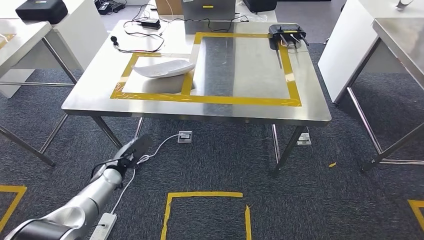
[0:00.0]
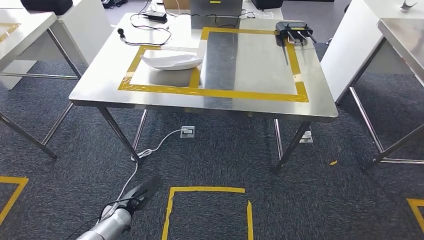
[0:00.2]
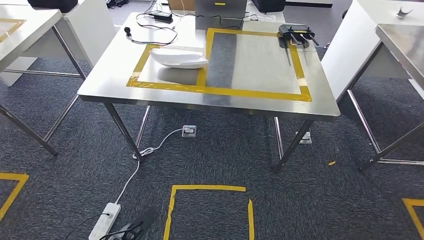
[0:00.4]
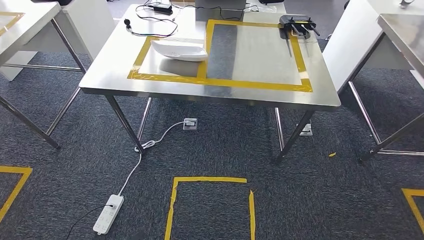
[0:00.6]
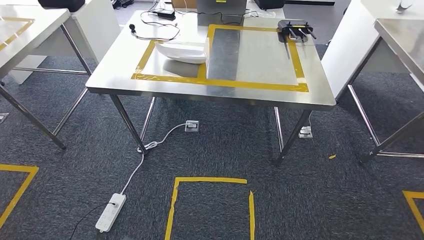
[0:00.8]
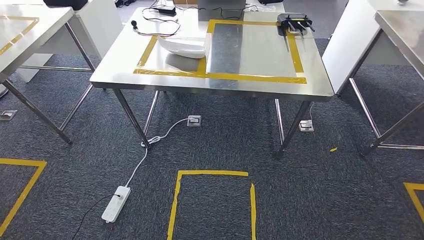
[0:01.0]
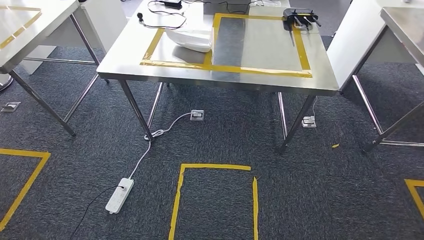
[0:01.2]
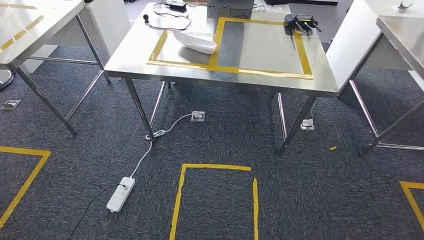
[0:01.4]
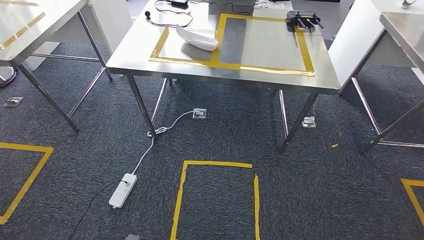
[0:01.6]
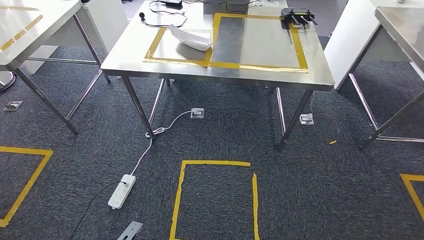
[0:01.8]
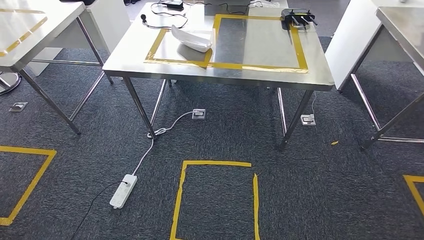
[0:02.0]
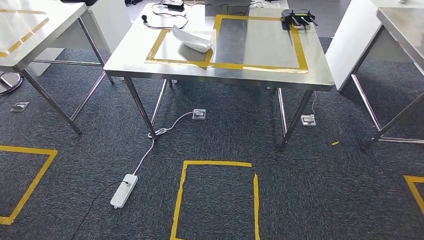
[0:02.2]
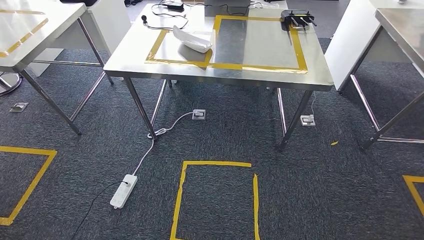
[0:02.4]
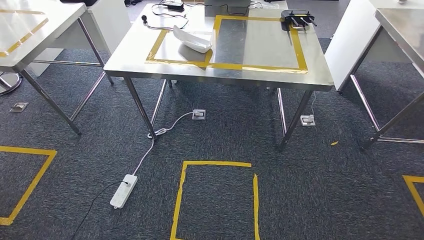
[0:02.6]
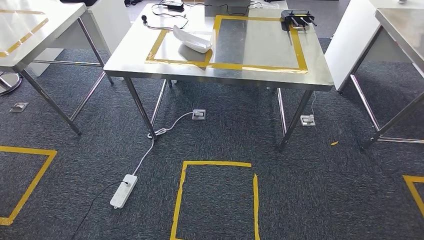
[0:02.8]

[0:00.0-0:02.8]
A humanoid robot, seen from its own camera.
Step, 0:00.0 to 0:02.8: Return to the initial position at the workbench.

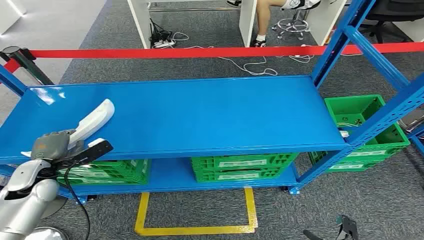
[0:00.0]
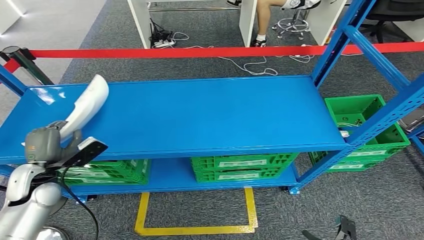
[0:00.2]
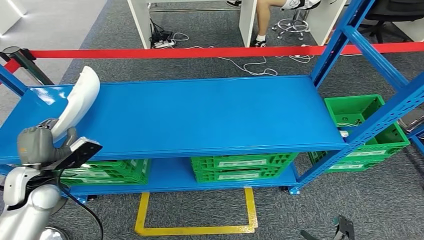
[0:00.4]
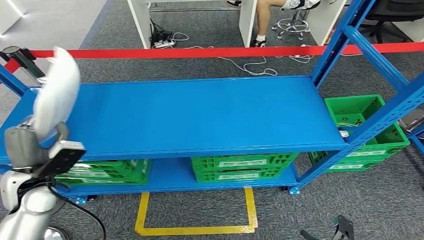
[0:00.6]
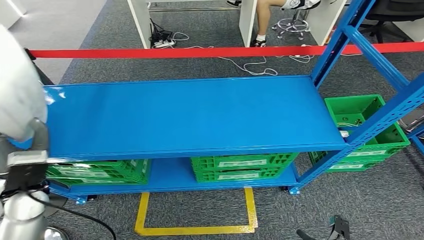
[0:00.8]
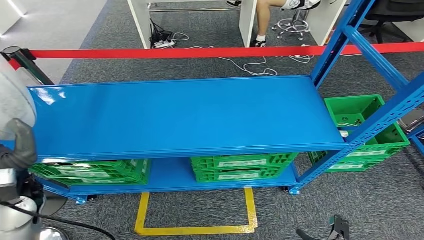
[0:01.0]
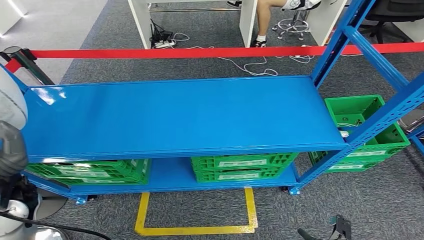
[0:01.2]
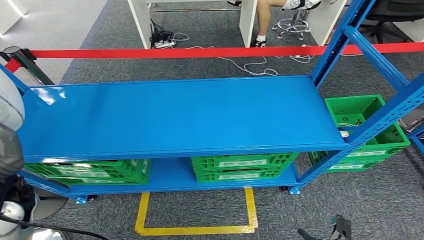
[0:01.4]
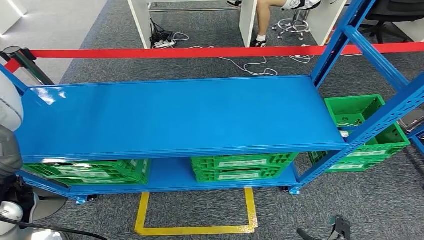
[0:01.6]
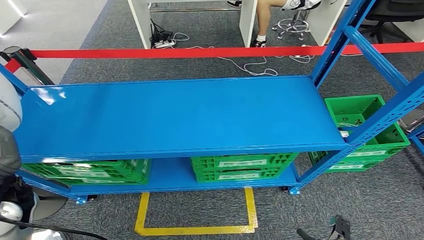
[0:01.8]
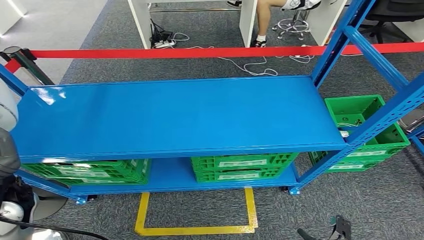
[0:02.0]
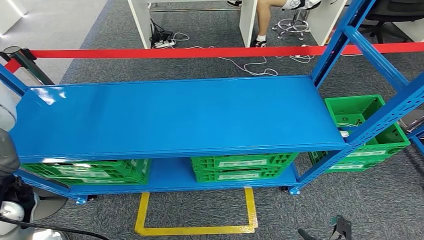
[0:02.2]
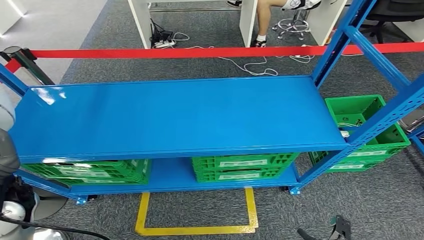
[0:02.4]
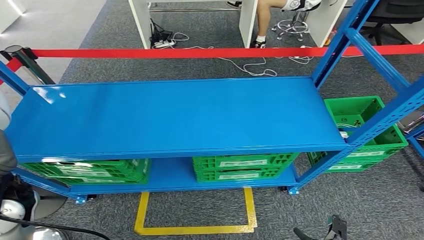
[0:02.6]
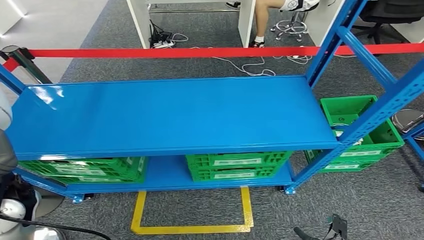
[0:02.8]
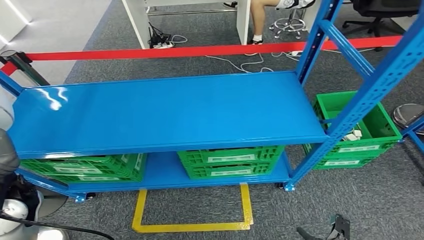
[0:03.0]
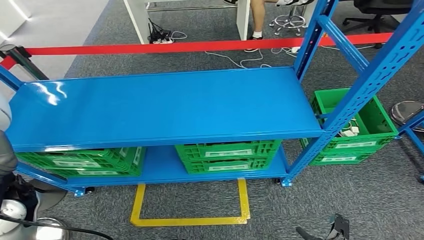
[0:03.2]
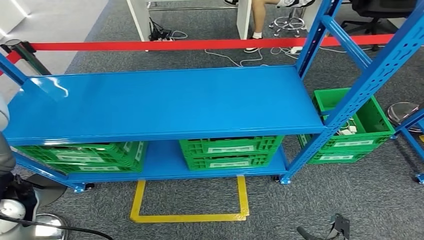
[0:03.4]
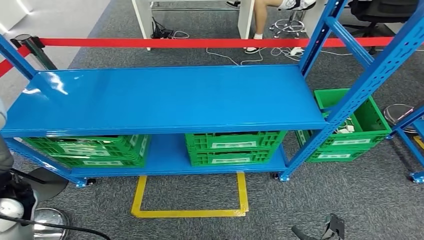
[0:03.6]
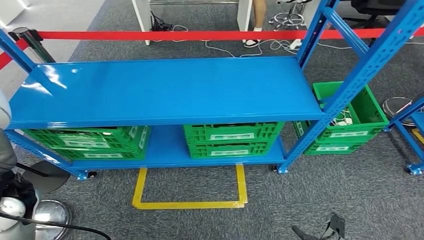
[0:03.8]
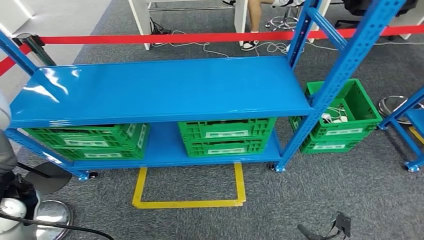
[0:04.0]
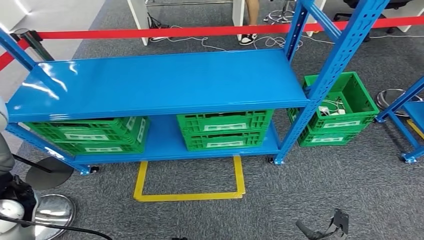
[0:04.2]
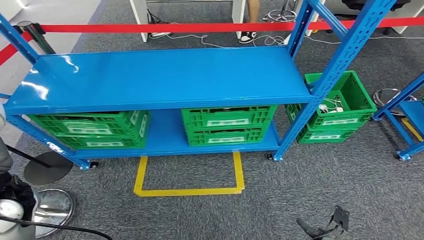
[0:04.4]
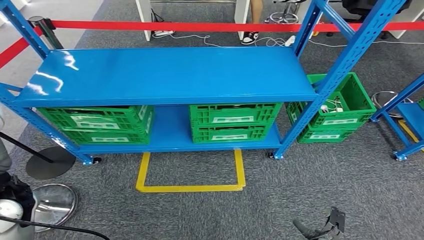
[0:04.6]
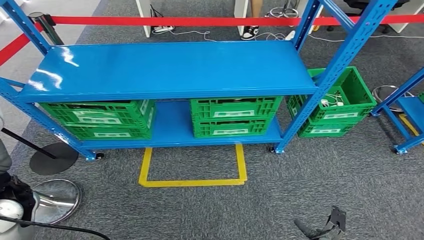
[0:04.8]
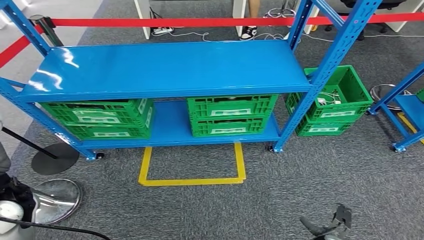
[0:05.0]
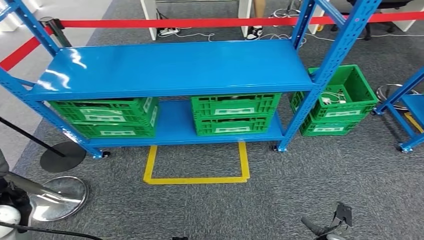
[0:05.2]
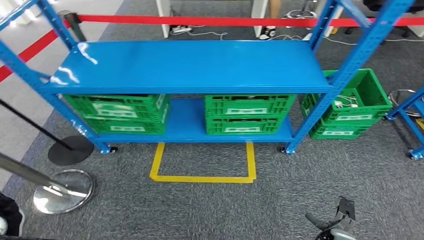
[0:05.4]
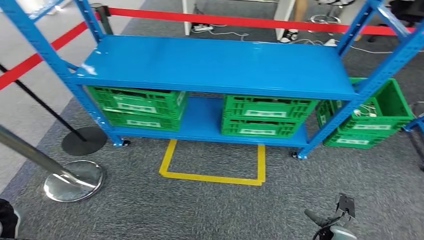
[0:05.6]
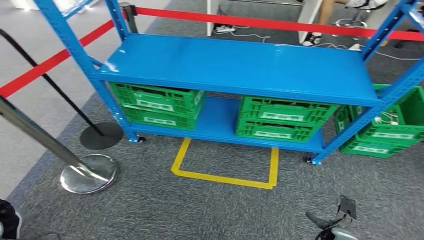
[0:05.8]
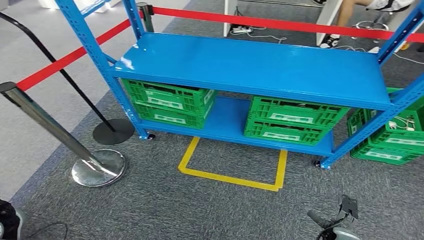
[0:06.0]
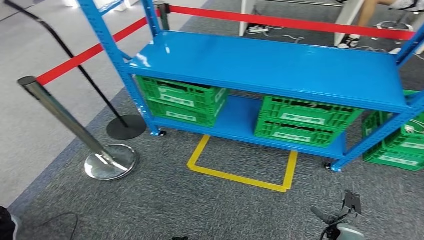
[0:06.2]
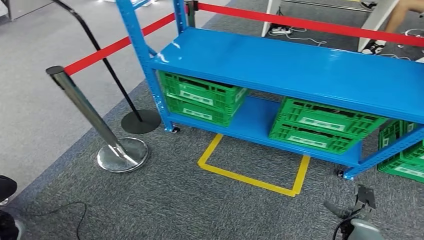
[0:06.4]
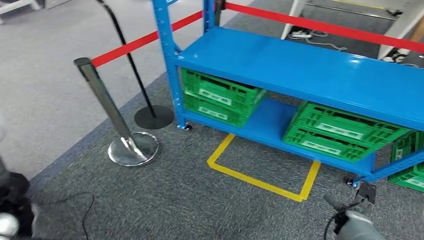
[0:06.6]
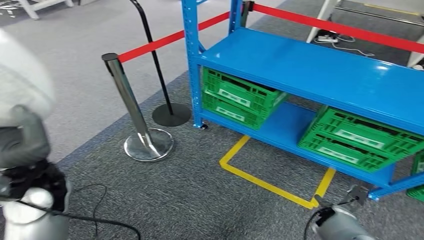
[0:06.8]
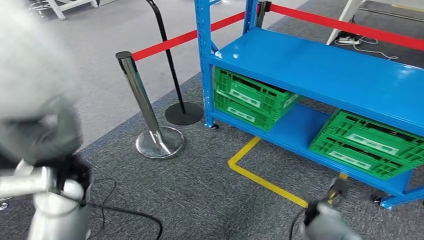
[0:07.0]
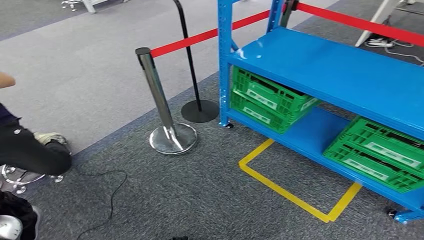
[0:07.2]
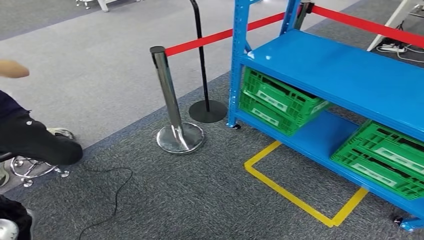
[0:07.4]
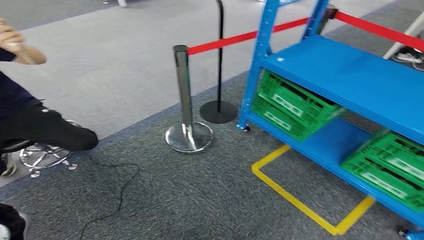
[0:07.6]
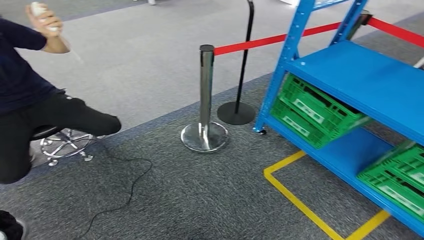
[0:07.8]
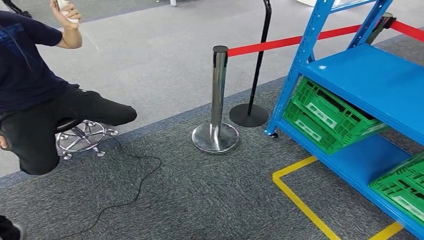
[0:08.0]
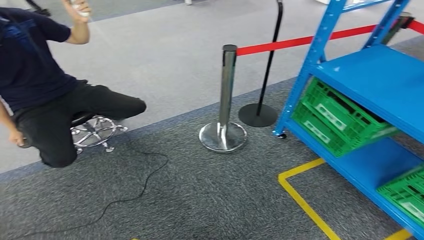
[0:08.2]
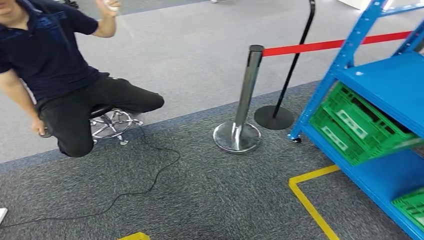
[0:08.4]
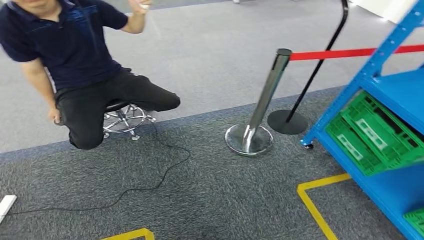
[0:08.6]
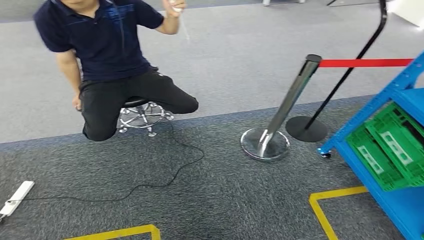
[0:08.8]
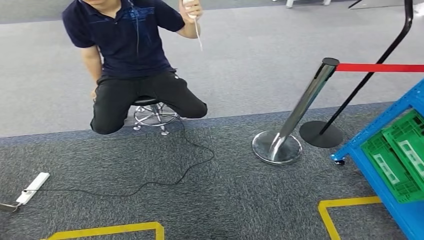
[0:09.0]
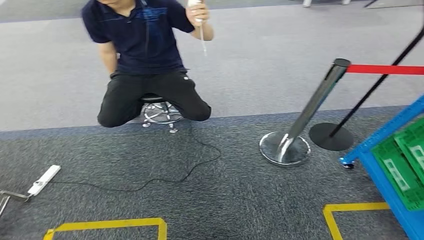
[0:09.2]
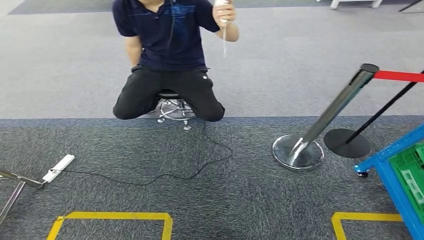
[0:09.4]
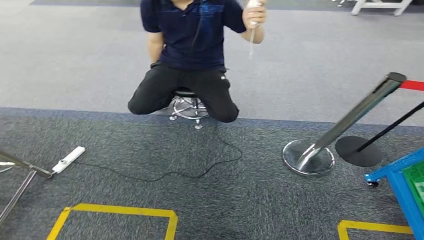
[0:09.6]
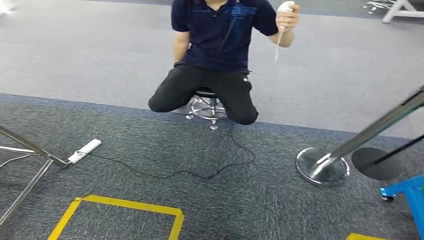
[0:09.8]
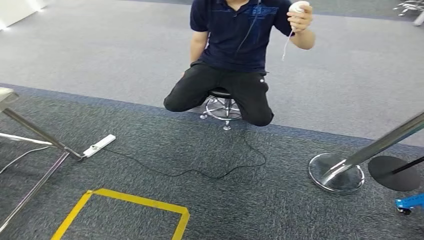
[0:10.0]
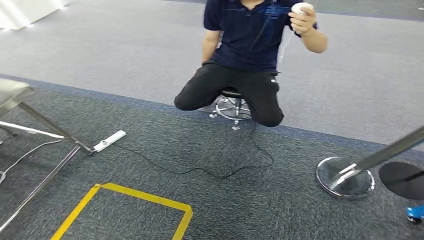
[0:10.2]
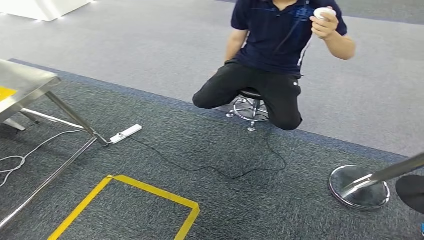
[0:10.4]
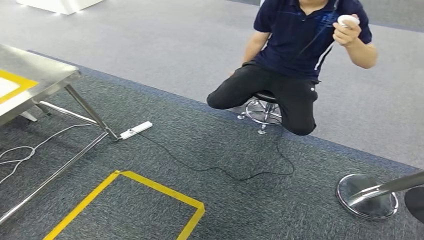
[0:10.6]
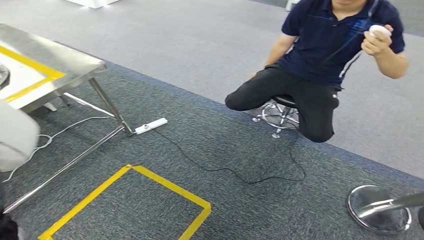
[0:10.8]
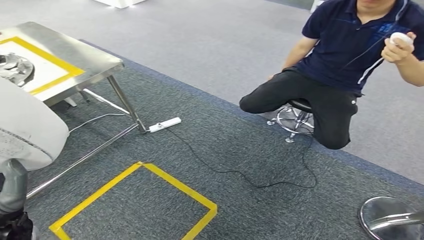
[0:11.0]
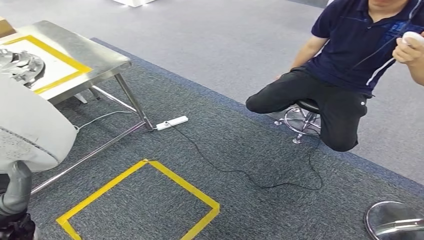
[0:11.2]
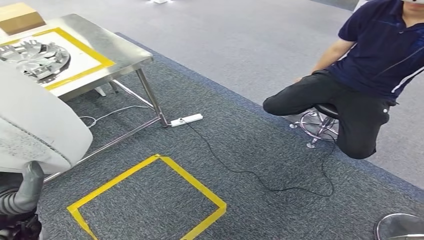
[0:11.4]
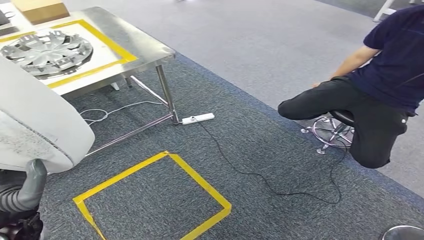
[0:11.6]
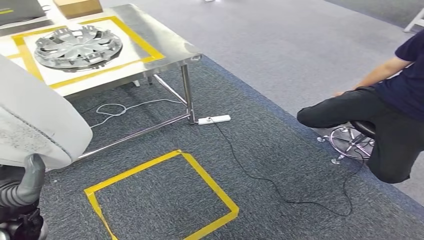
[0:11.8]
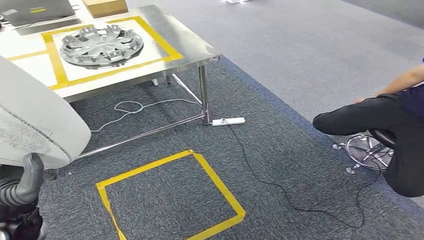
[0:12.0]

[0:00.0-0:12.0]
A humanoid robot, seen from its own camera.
Step, 0:00.0 to 0:02.2: Pick up the small component from the shelf.

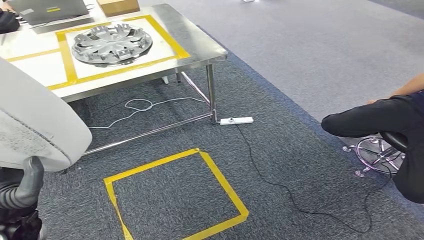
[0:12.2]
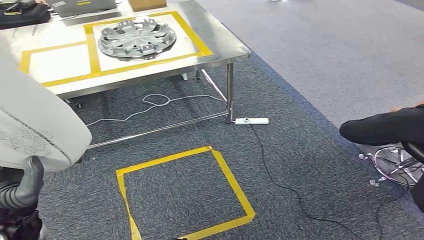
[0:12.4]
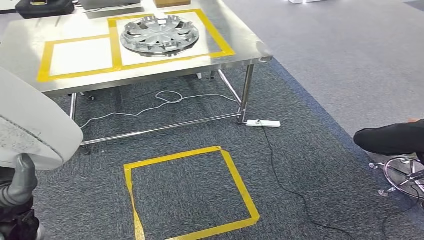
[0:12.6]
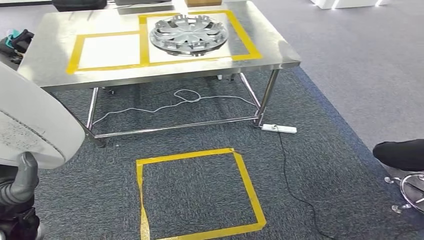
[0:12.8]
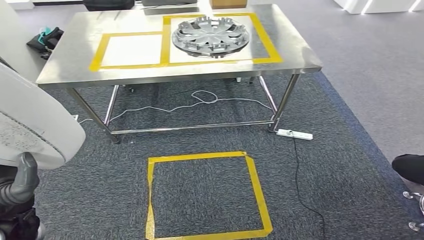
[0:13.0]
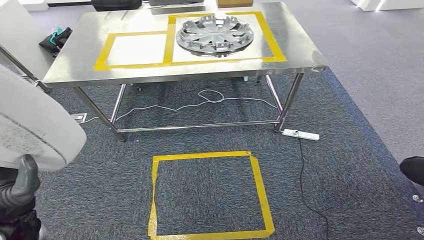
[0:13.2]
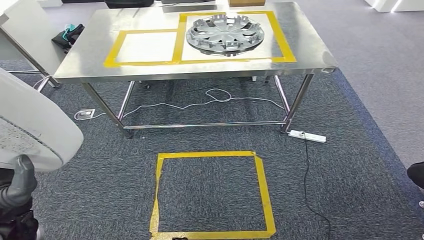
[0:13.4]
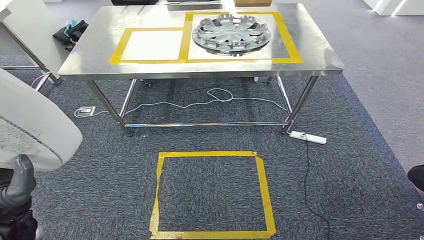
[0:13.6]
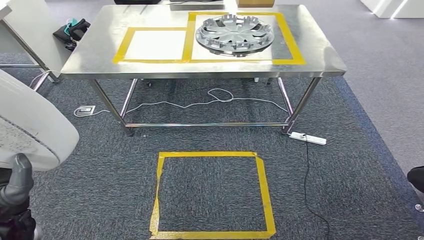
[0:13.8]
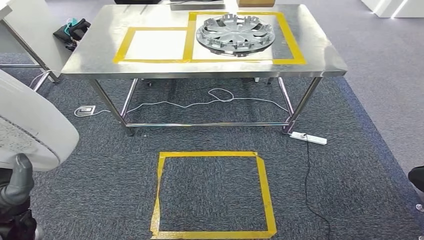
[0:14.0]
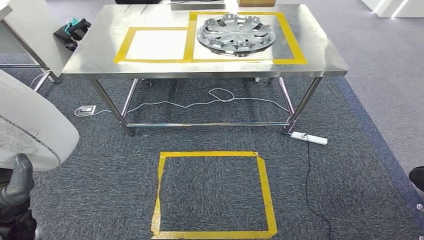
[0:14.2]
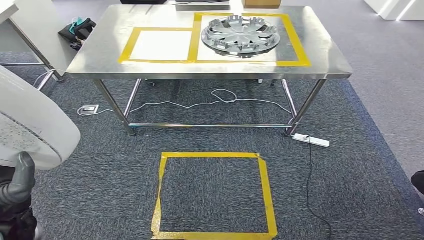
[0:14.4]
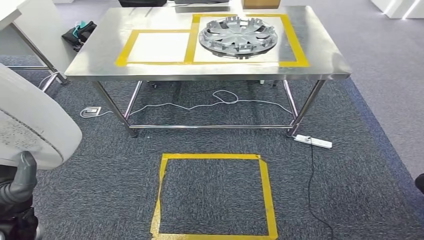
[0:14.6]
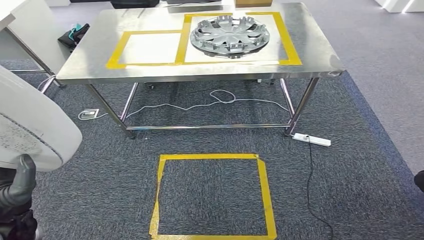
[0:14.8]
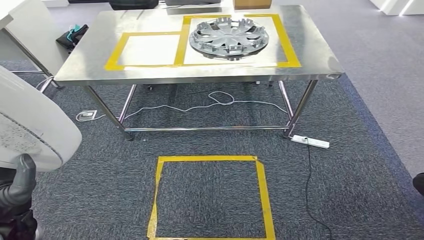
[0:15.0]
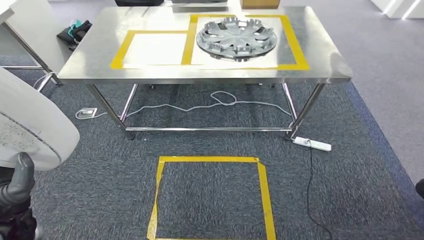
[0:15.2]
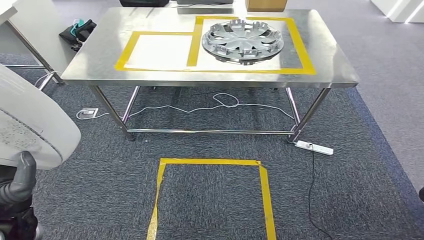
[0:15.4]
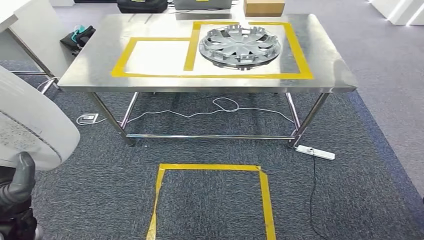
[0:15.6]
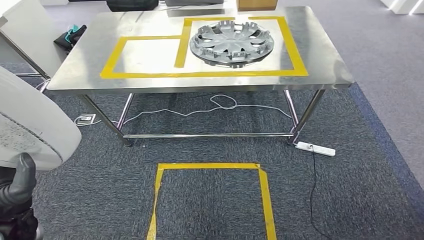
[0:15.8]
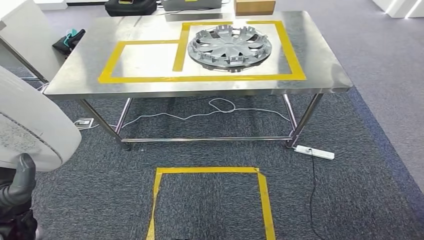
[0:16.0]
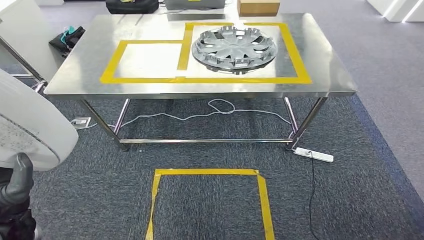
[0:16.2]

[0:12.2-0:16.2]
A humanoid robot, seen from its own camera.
0:13.6 to 0:14.8: Both hands stay put.
